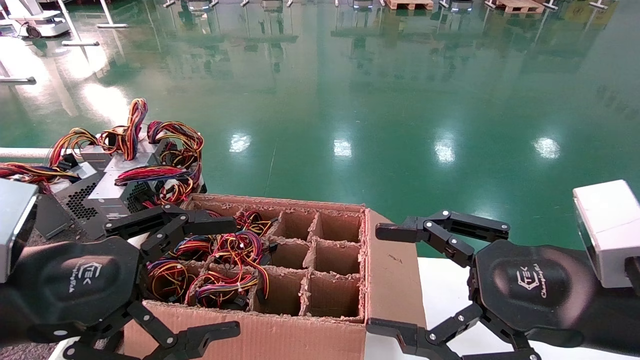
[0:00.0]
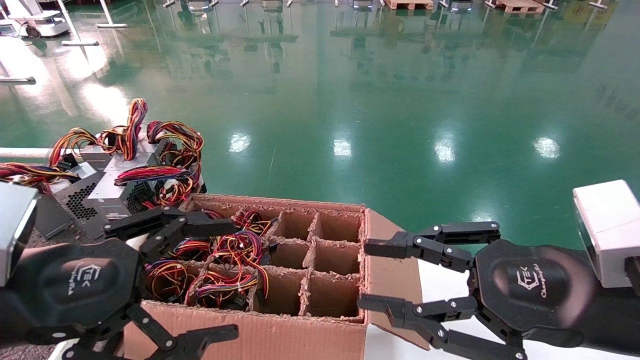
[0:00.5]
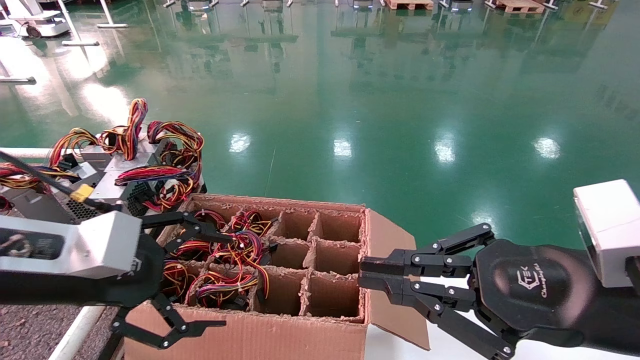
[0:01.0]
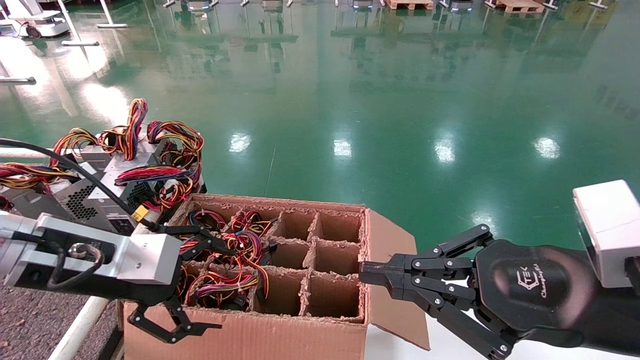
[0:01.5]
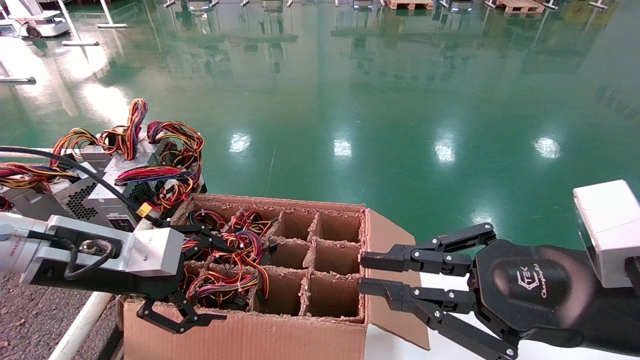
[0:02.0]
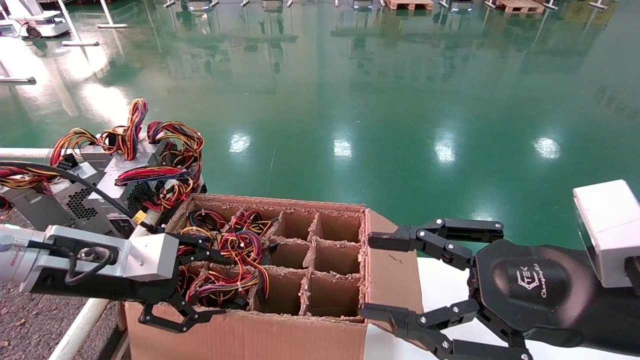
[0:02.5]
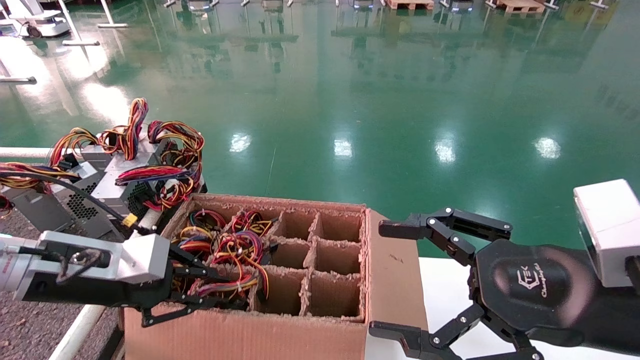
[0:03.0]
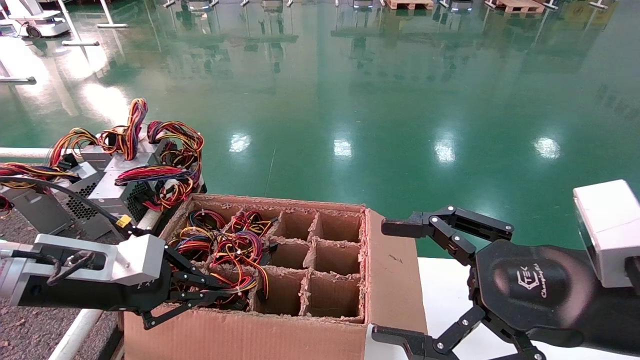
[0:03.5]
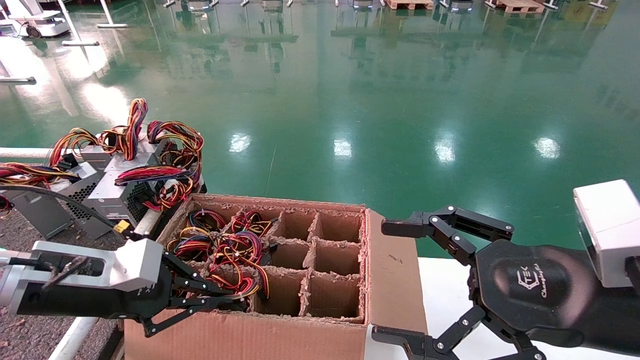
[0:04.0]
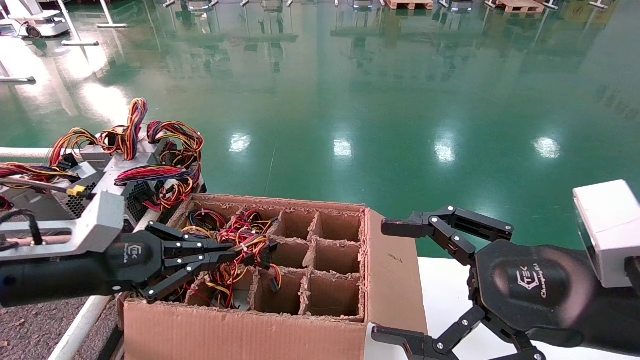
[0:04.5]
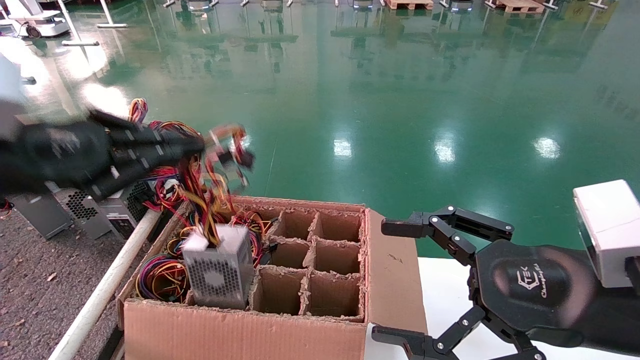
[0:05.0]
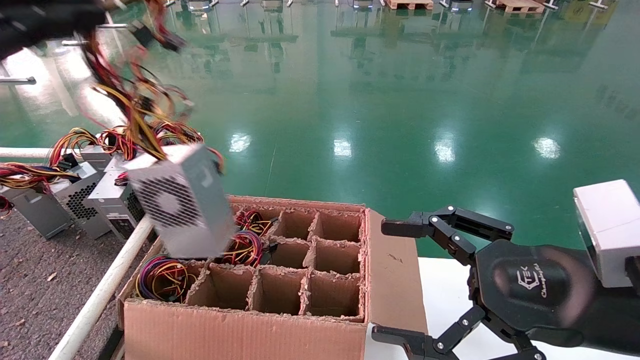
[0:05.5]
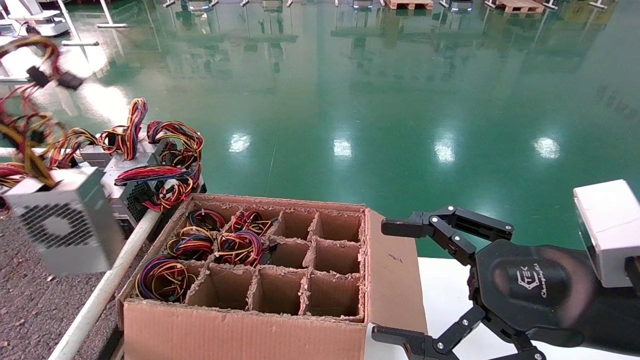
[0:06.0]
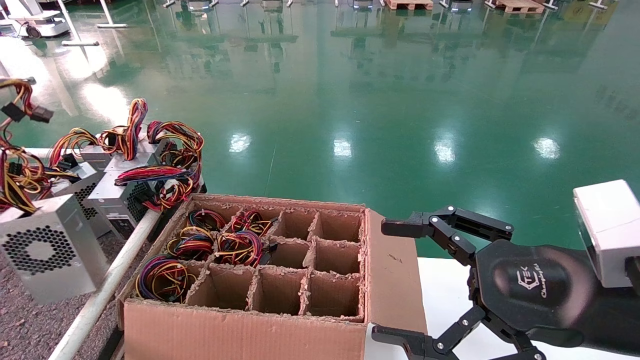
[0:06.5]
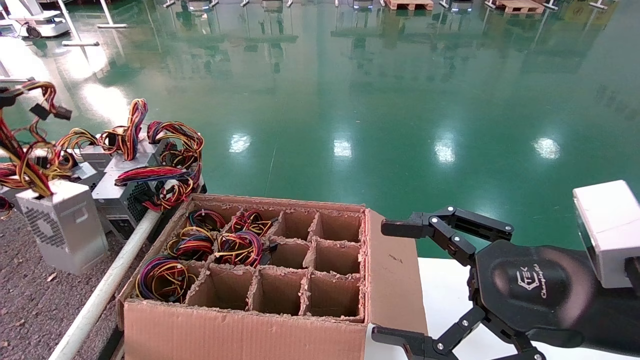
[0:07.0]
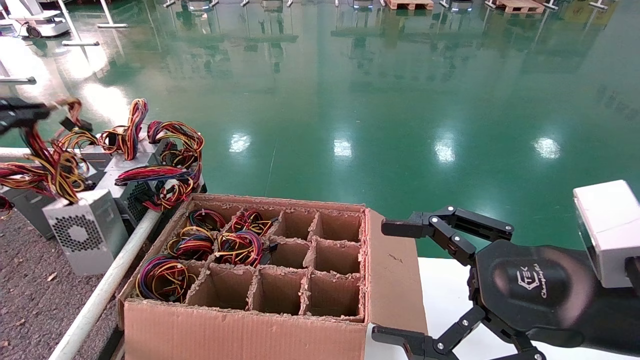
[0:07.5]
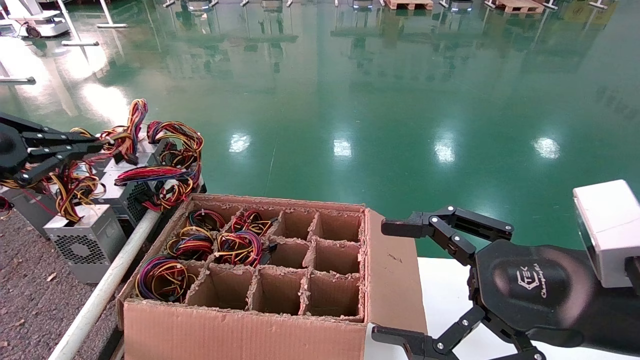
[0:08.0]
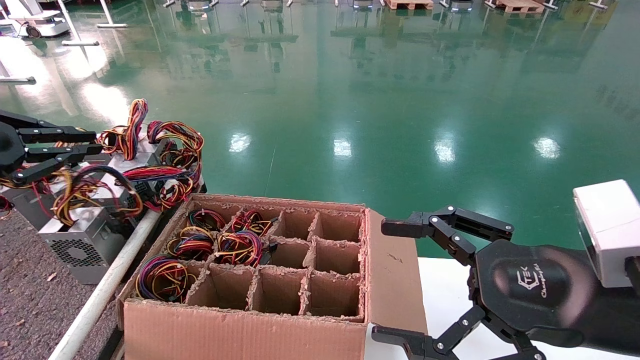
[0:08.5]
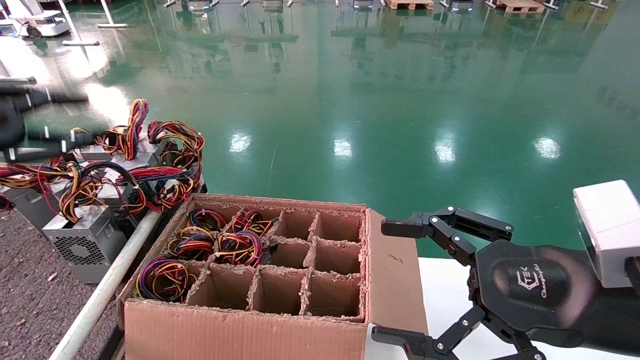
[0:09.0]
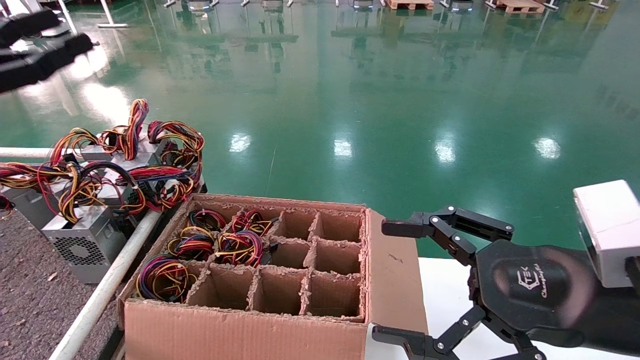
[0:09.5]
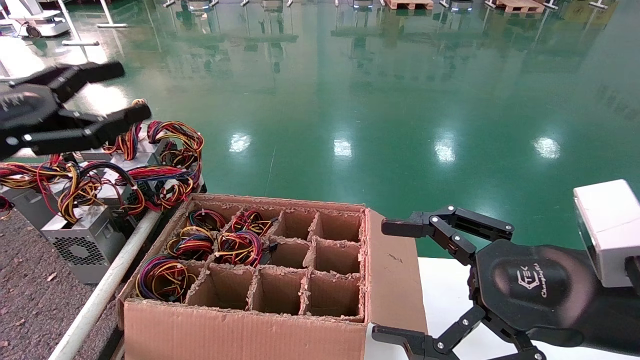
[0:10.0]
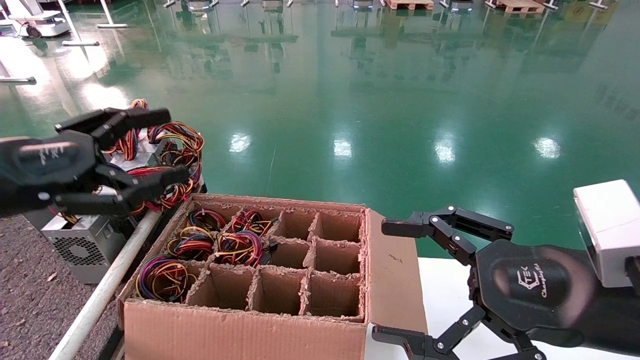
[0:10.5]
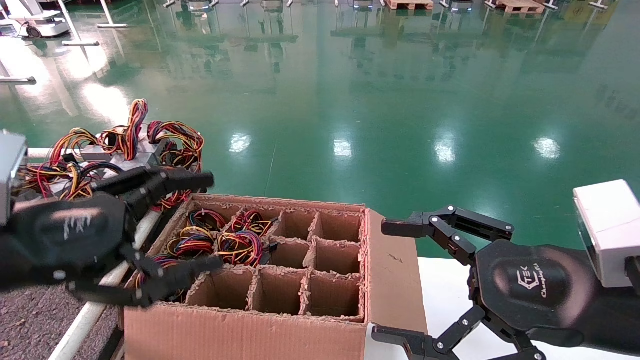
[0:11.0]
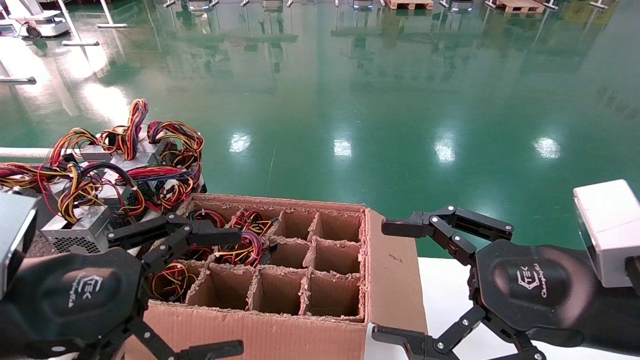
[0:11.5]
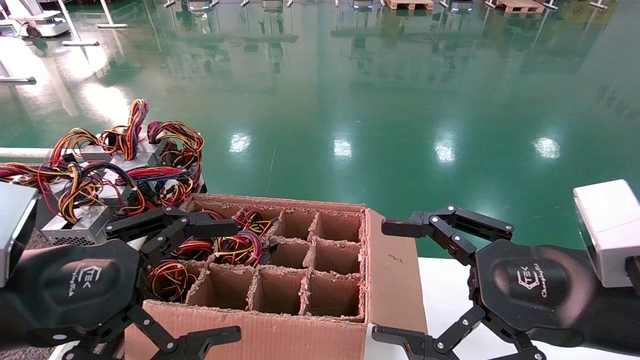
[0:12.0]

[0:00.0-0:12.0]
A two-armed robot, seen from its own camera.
Step, 0:01.5 to 0:03.0: Grab and lift the power supply from the large box.
Step, 0:03.5 to 0:09.0: Place the power supply on the operating table.
0:00.0 to 0:02.0: The right gripper closes its fingers, while the left gripper travels forward by some 10 cm.
0:02.0 to 0:04.0: The right gripper opens, while the left gripper closes up.
0:04.0 to 0:06.0: The left gripper shifts approximately 30 cm upward, to the left and backward.
0:06.0 to 0:08.0: The left gripper moves forward and downward, about 15 cm.
0:08.0 to 0:10.0: The left gripper moves to the right, about 10 cm, and opens up.
0:10.0 to 0:12.0: The left gripper moves to the right, backward and downward, some 15 cm.

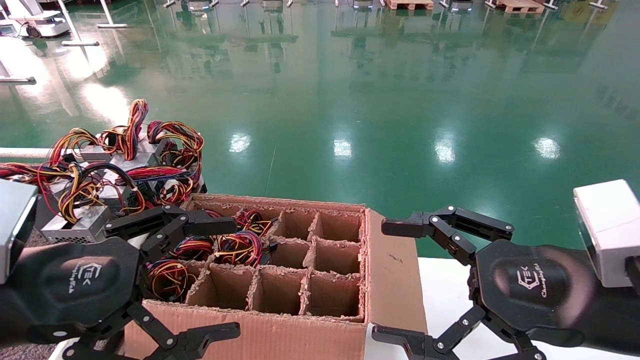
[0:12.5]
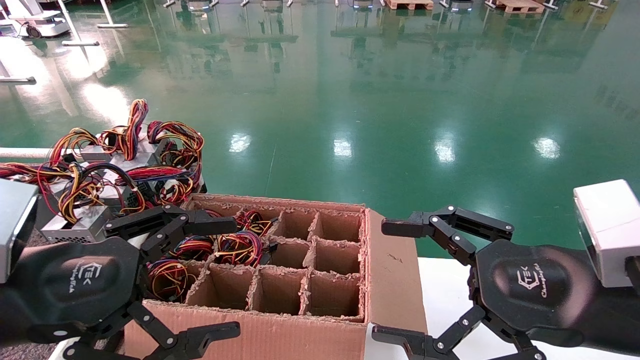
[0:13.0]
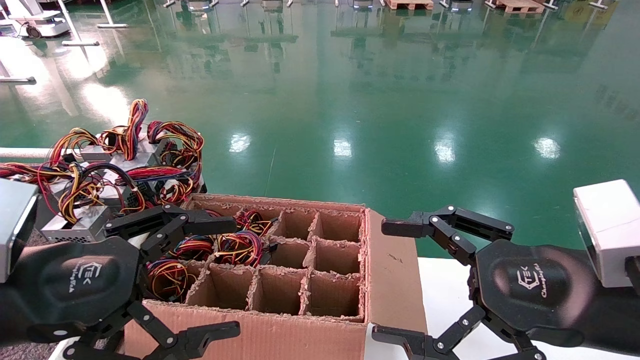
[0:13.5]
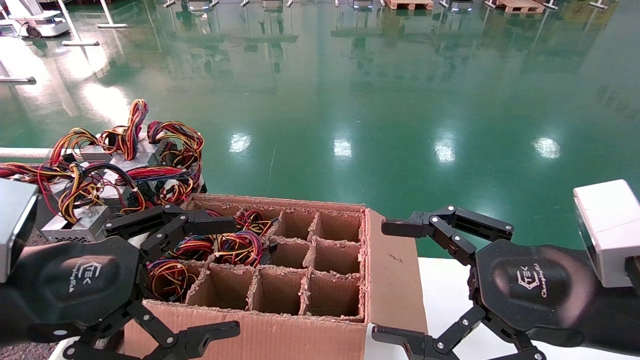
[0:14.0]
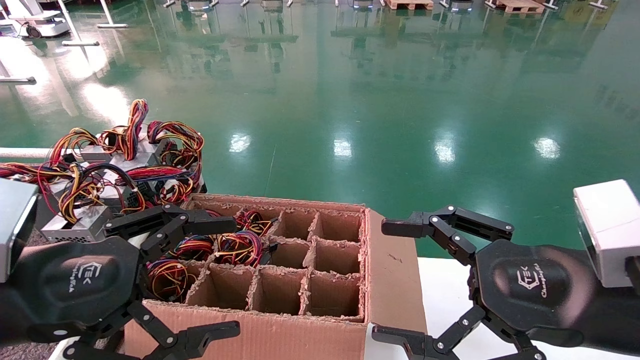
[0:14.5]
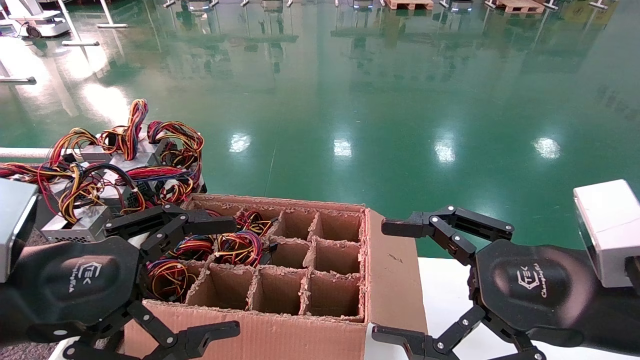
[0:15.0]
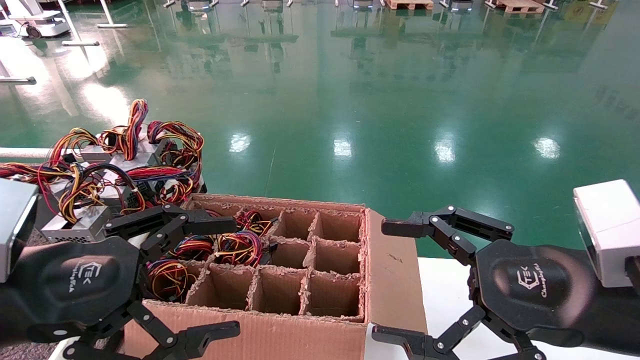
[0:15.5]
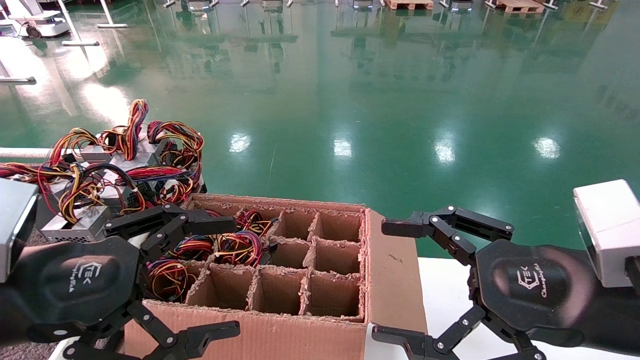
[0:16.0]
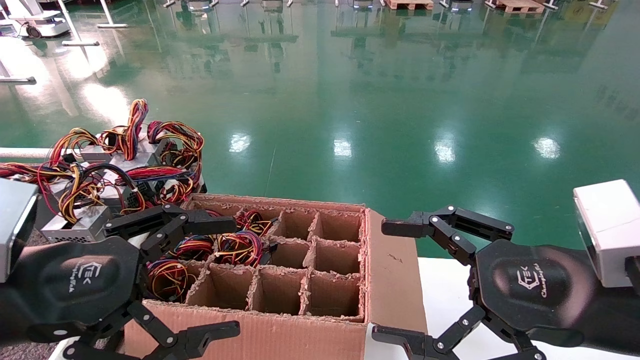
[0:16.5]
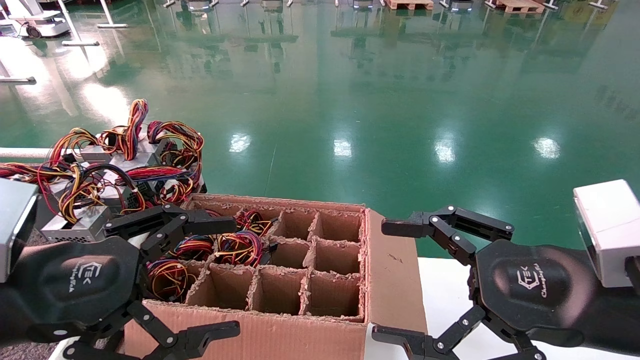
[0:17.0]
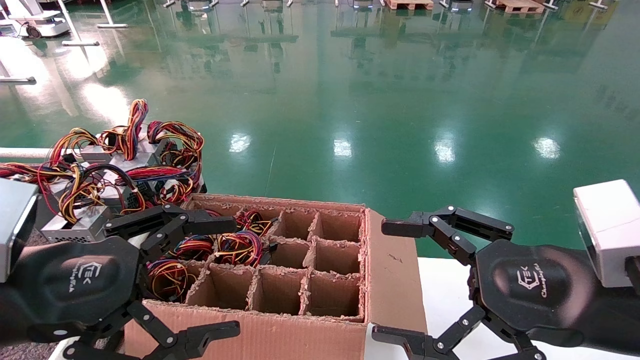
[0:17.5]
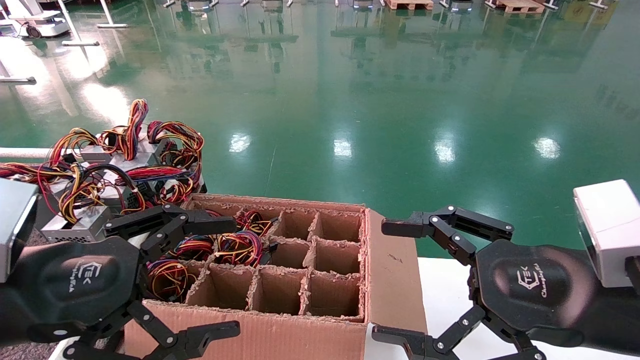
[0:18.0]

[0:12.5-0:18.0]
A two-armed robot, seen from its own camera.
0:12.5 to 0:18.0: Neither gripper changes place.
